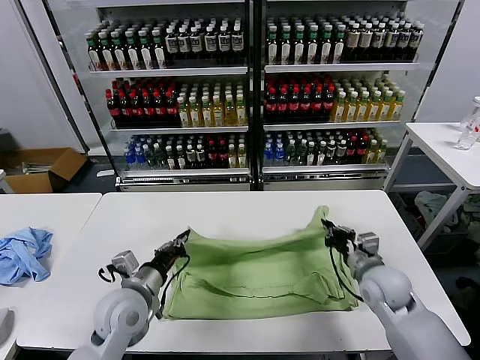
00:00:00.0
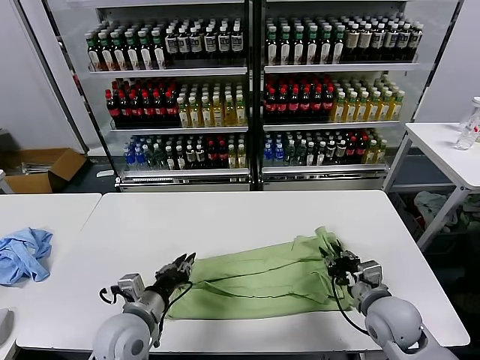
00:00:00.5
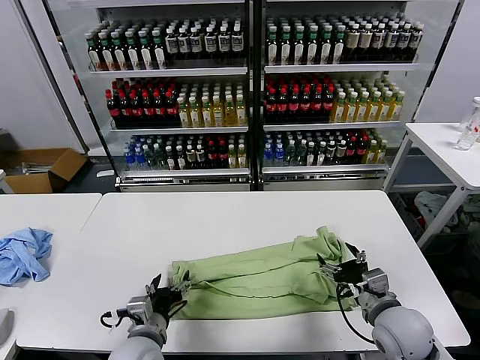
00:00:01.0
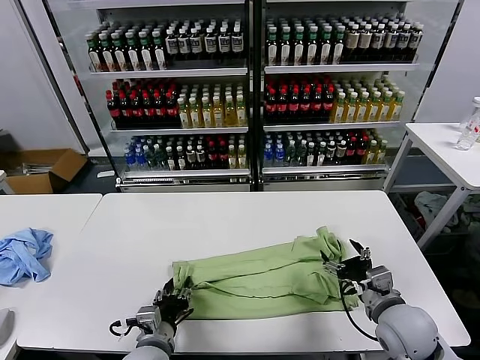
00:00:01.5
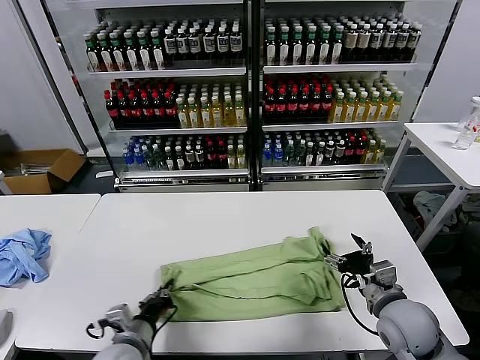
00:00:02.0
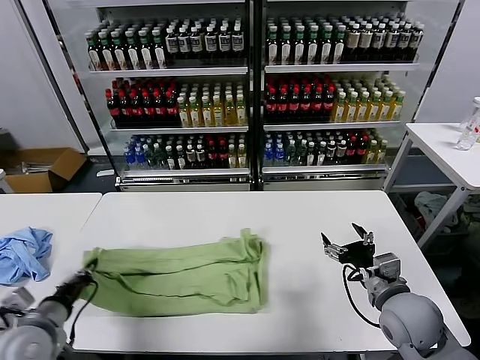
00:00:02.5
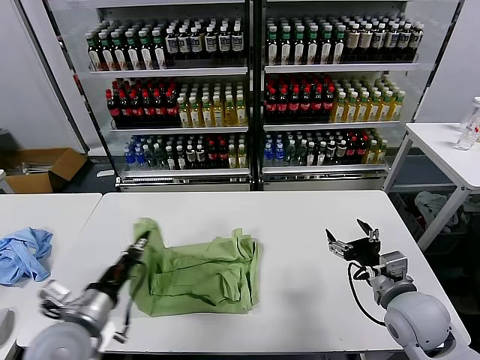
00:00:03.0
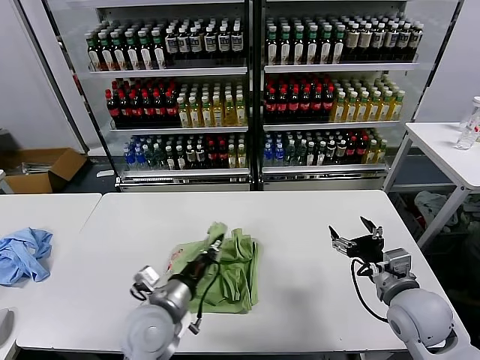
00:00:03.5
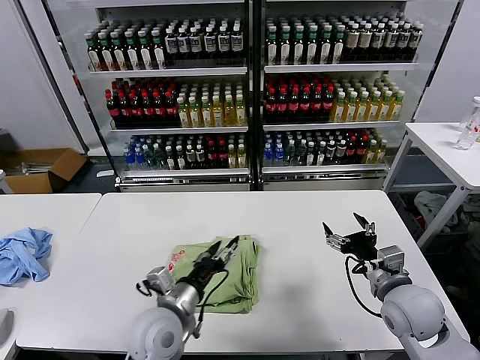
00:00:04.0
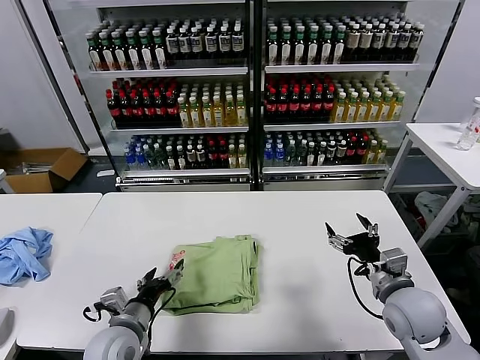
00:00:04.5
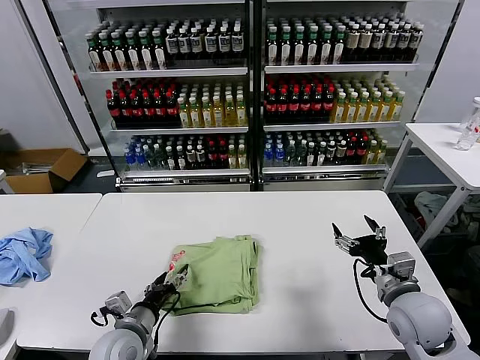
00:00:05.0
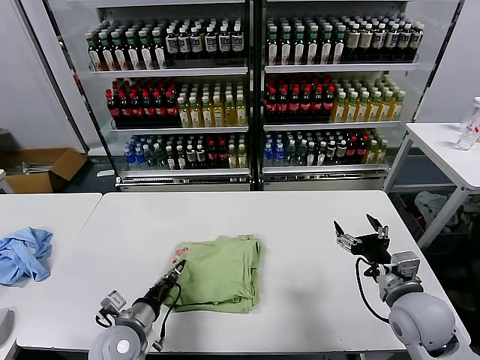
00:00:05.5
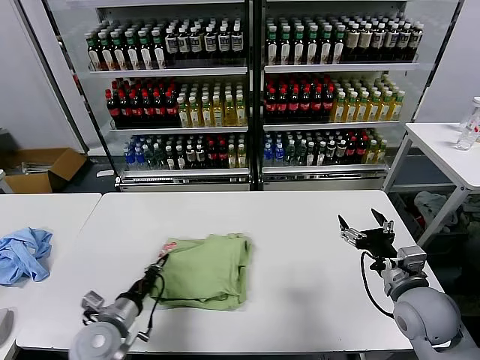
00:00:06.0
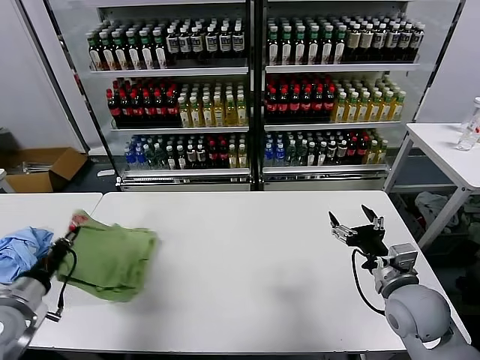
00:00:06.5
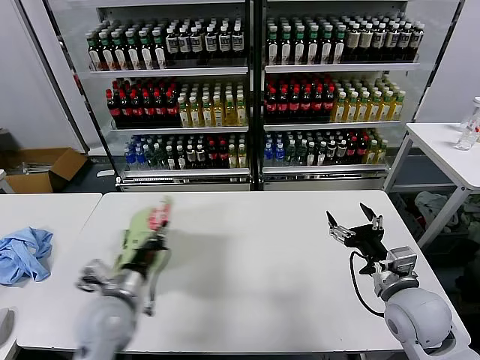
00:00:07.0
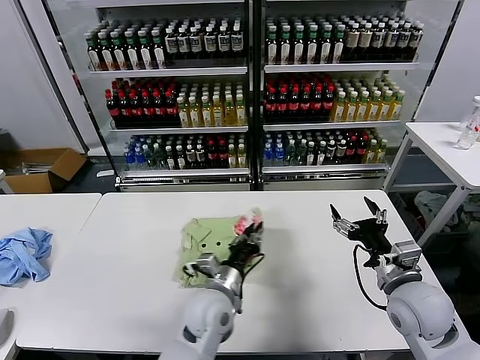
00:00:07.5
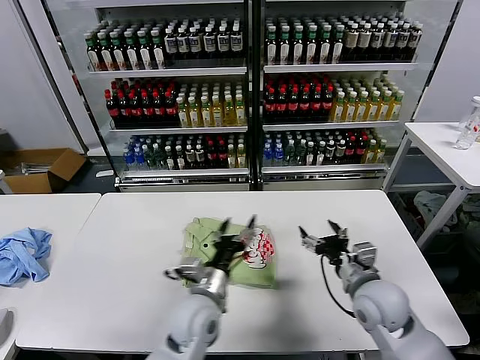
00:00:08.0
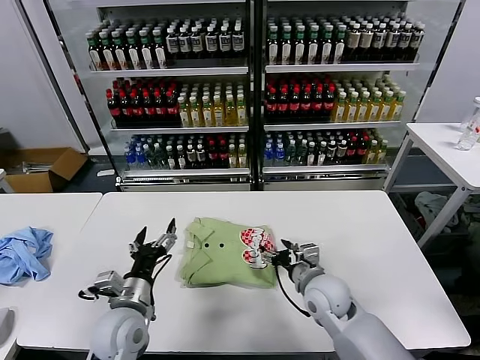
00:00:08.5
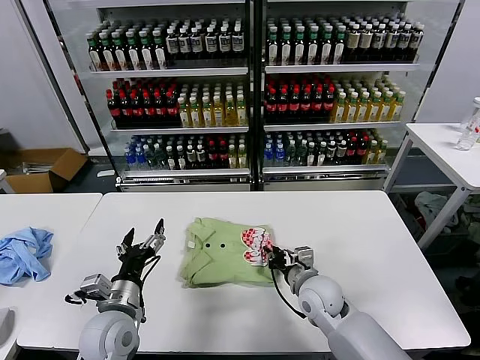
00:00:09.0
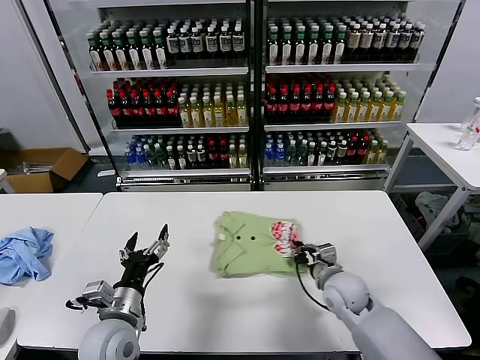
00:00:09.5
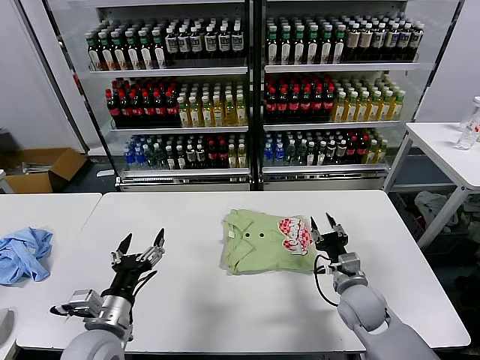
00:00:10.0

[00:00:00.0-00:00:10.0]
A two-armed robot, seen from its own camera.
Task of the whole recording: fold and organize the clothes.
Step, 00:00:01.0 to 00:00:01.5: use the left gripper to clamp the left edge of the fabric.
Step, 00:00:02.0 to 00:00:03.5: use the left gripper to drag the left edge of the fabric to the left and folds it over the right edge.
Step, 00:00:04.0 to 00:00:07.5: Flip the folded clothes over with left gripper.
Step, 00:00:08.0 to 00:00:09.5: Drag the clothes to the center of the table.
00:00:00.0 to 00:00:02.0: The right gripper is displaced backward by some 5 cm, and opens its fingers, while the left gripper goes some 10 cm backward and downward, and opens, then closes again.
00:00:02.0 to 00:00:04.0: The left gripper moves upward, some 5 cm, travels to the left and back again, approximately 15 cm each way, and opens.
00:00:04.0 to 00:00:06.0: The left gripper heads to the left and downward, covering approximately 15 cm, and closes.
00:00:06.0 to 00:00:08.0: The left gripper heads to the right, covering some 20 cm, and opens; the right gripper travels to the left by some 5 cm.
00:00:08.0 to 00:00:10.0: The left gripper shifts roughly 20 cm to the left. Meanwhile the right gripper travels downward by about 10 cm, moves some 10 cm to the left and comes back, and closes its fingers.
